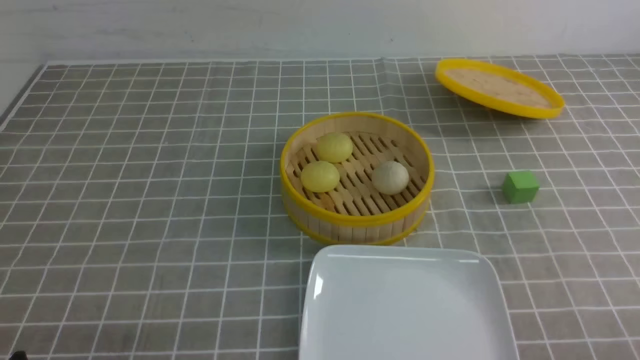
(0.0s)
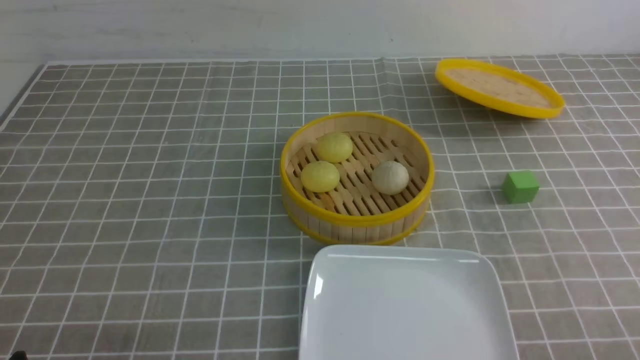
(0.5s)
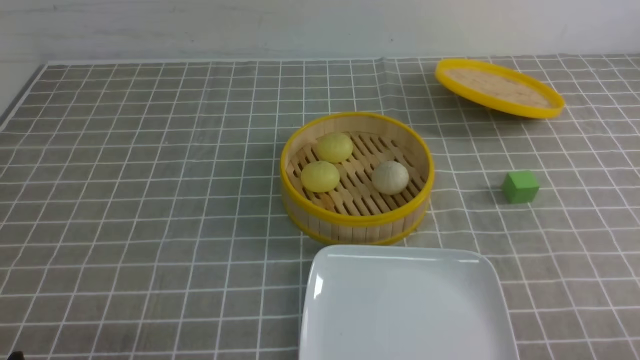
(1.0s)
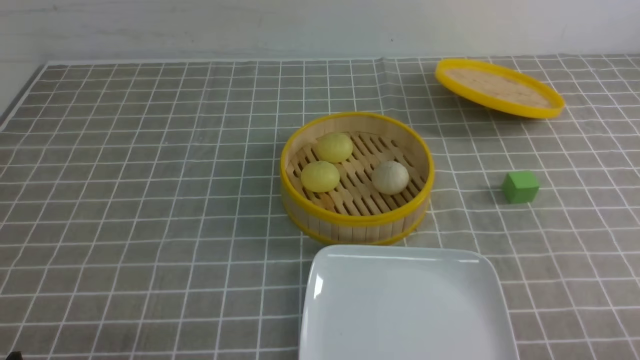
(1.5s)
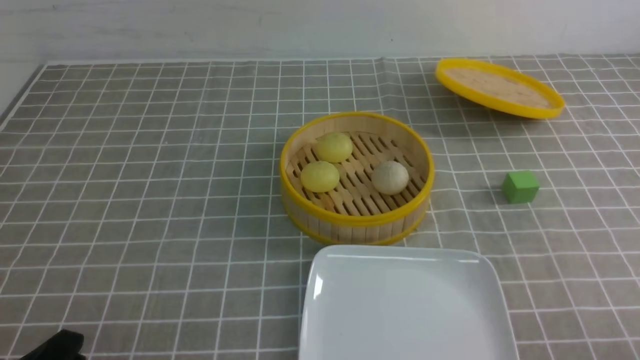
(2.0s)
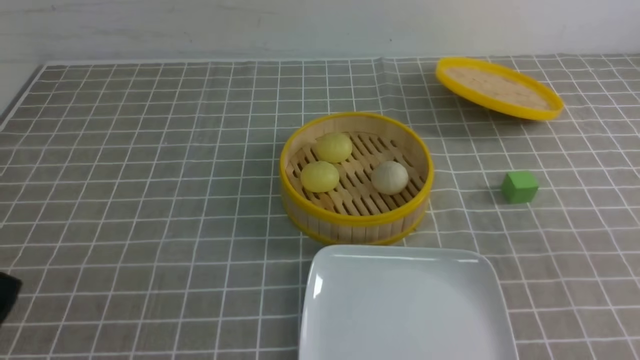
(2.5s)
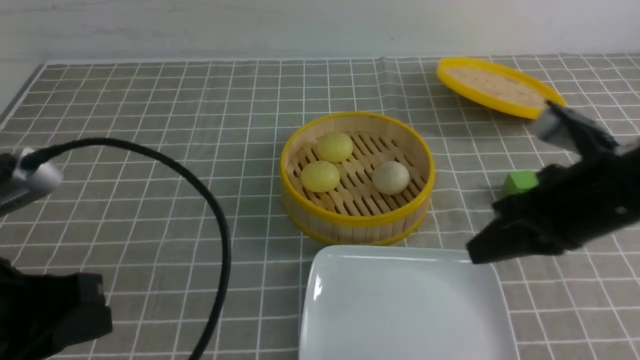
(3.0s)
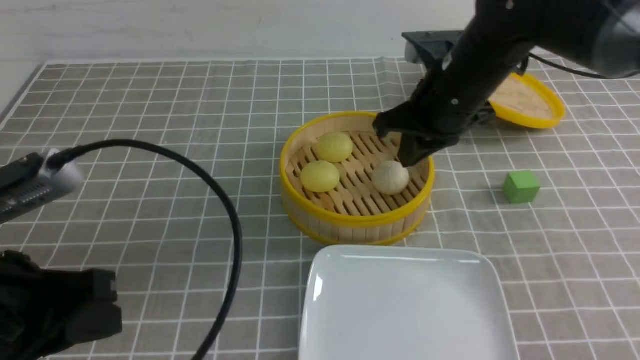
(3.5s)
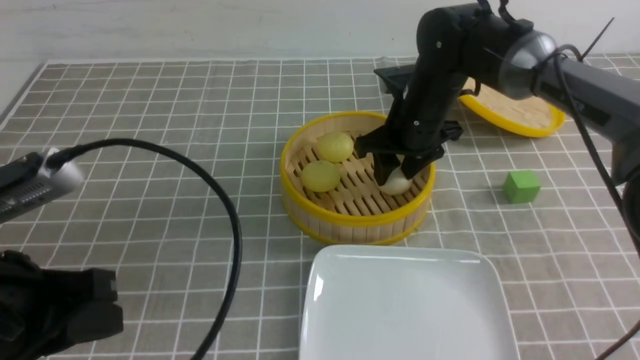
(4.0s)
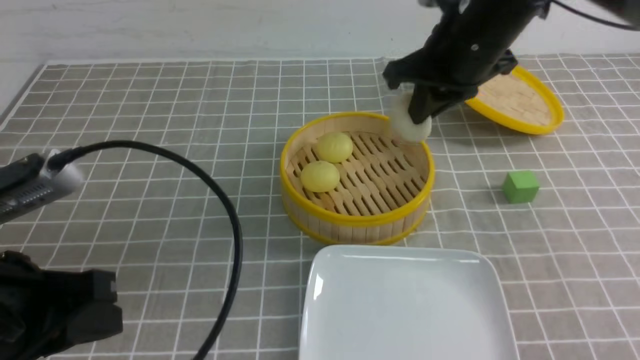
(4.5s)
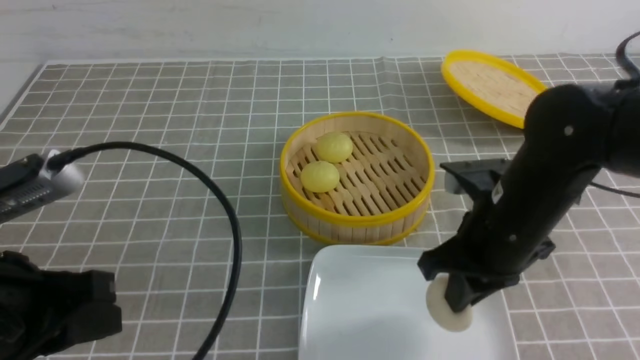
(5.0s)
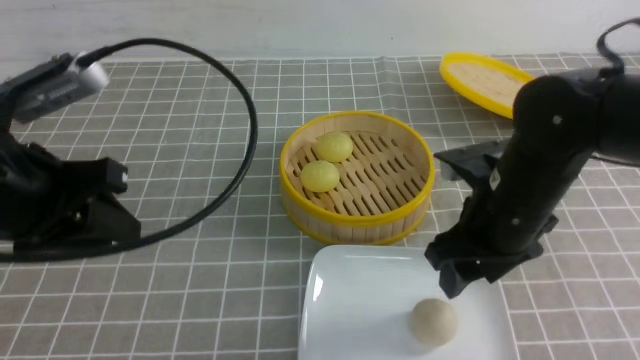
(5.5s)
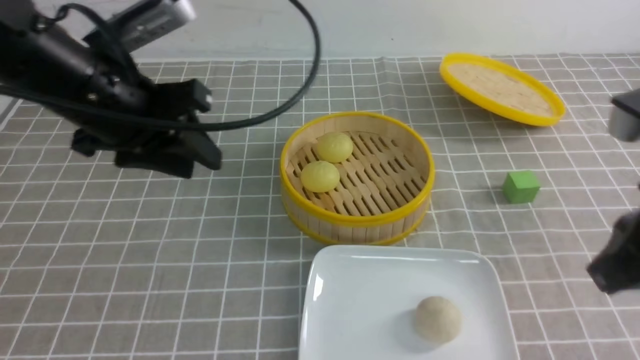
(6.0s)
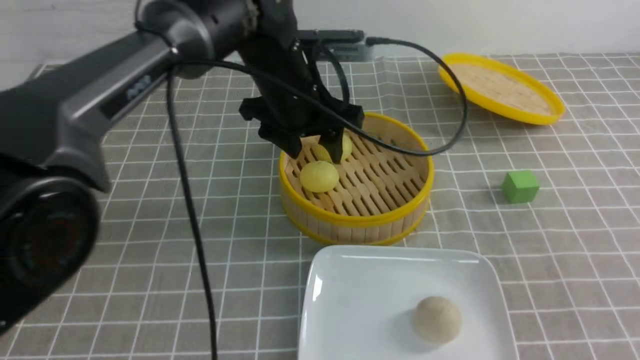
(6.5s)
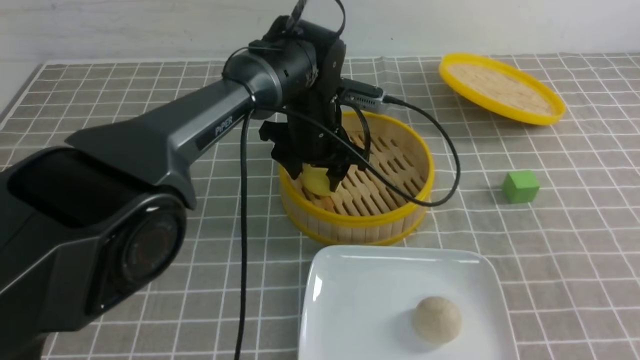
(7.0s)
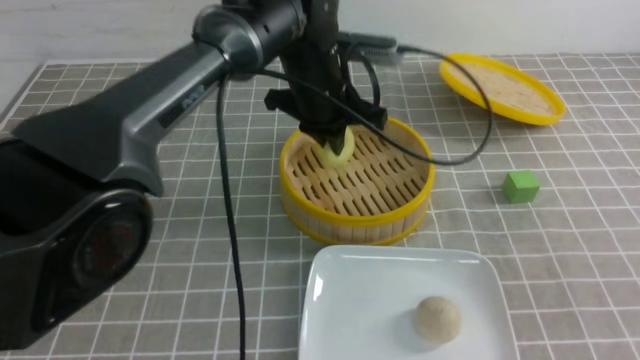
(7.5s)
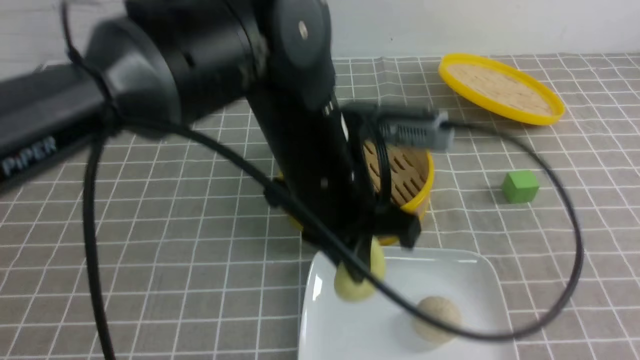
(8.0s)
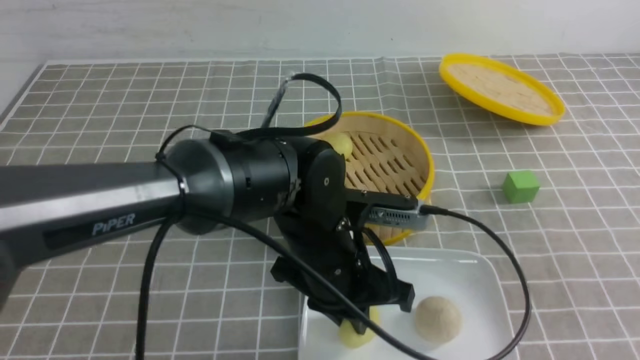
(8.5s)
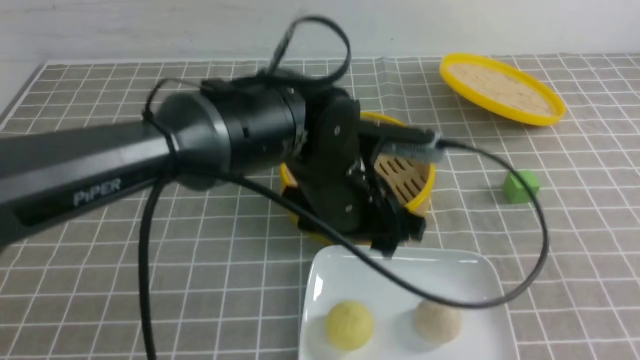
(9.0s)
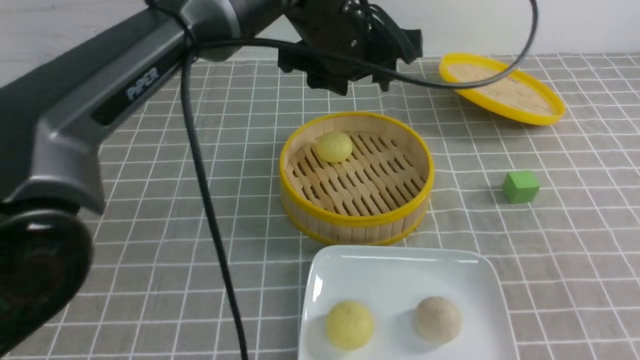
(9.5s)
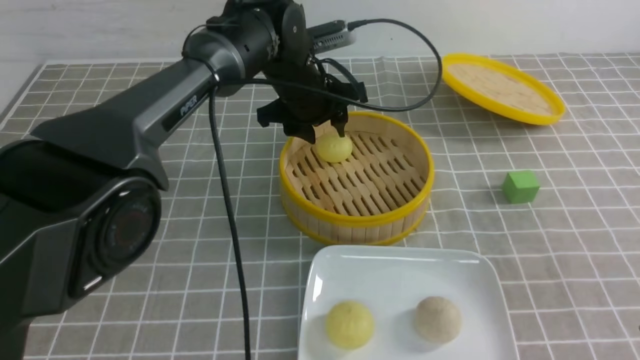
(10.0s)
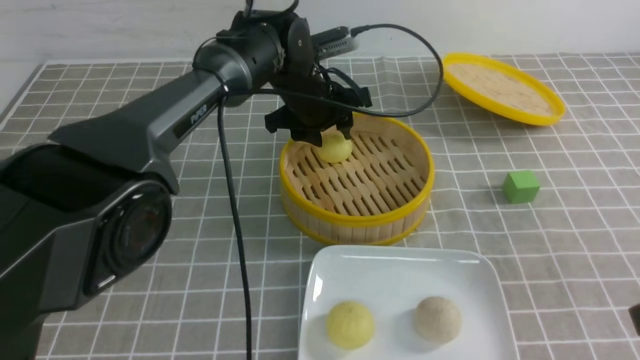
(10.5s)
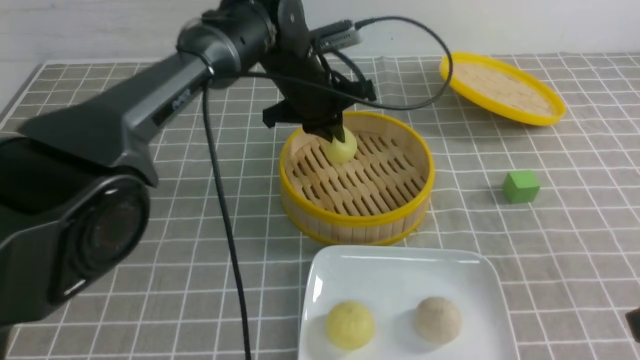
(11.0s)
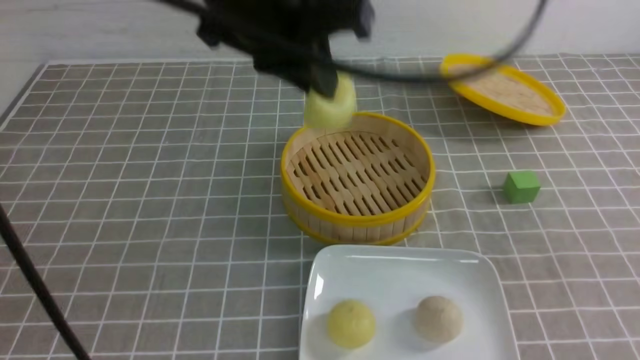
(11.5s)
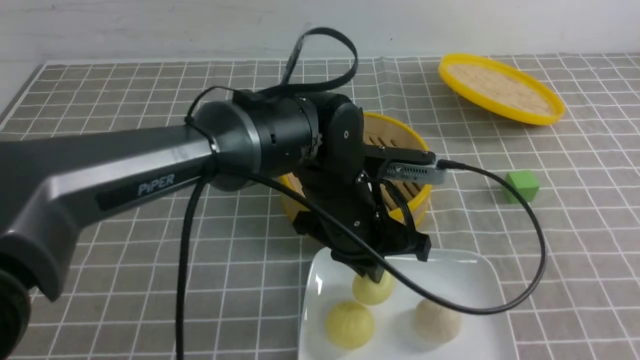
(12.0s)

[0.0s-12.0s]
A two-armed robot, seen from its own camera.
Step, 0.0s to 4.0s: use the right arm to grab the steamed stuffed bun that is closest to it.
Step, 4.5s to 5.0s: use the right arm to put the steamed stuffed bun into the plate.
Step, 5.5s to 7.0s: use the left arm to grab the steamed stuffed bun that is closest to it.
Step, 7.5s to 8.5s: use the left arm to put the steamed stuffed bun into the plate.
Step, 9.0s to 10.5s: use the left arm to grab the steamed stuffed bun that is closest to it.
2.0s to 4.0s: The left gripper goes some 15 cm upward and forward, and closes its fingers; the right gripper travels forward and to the left by some 40 cm, and closes, then reopens.
4.0s to 6.0s: The right gripper goes about 30 cm backward, to the right and upward, and closes its fingers. The left gripper shifts approximately 15 cm forward, and opens its fingers.
6.0s to 8.0s: The left gripper shifts some 15 cm to the right, and closes, while the right gripper is displaced backward by some 5 cm.
8.0s to 10.0s: The left gripper is displaced forward by some 20 cm, and opens up.
10.0s to 12.0s: The right gripper shifts some 5 cm backward; the left gripper heads backward, covering about 20 cm, and closes its fingers.

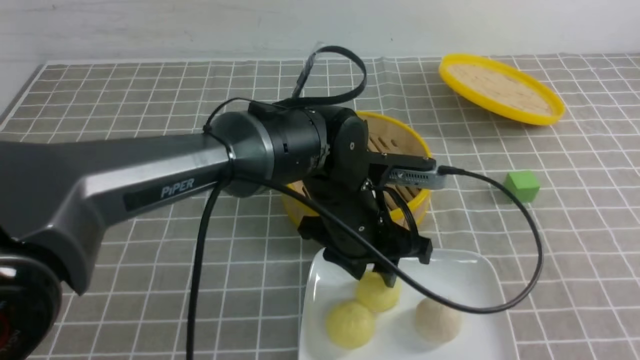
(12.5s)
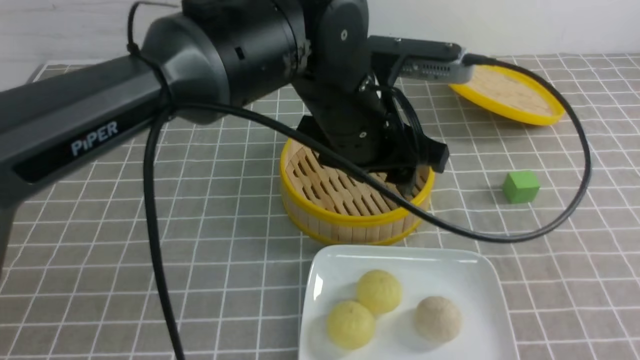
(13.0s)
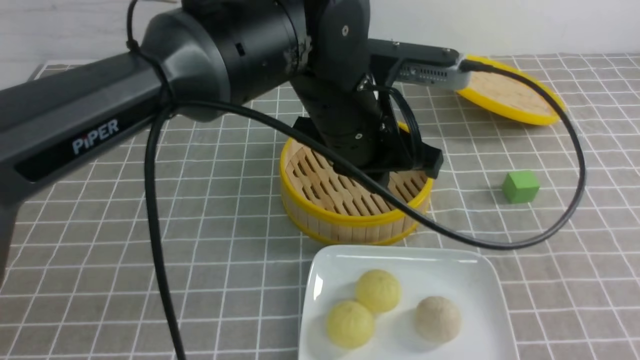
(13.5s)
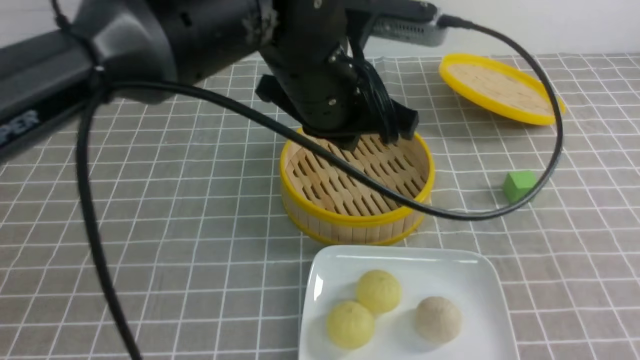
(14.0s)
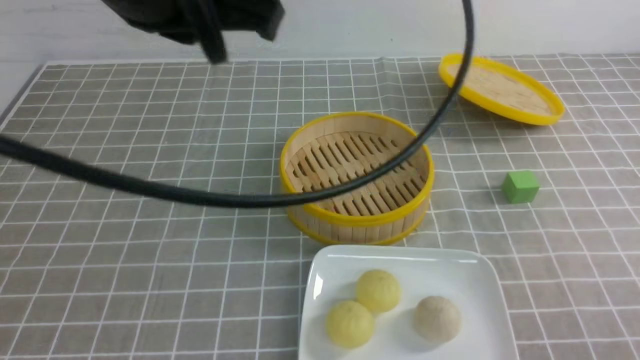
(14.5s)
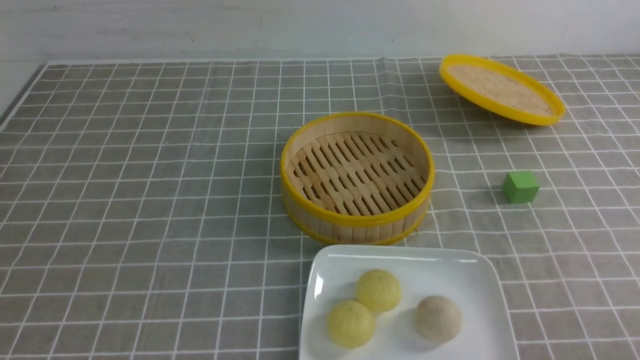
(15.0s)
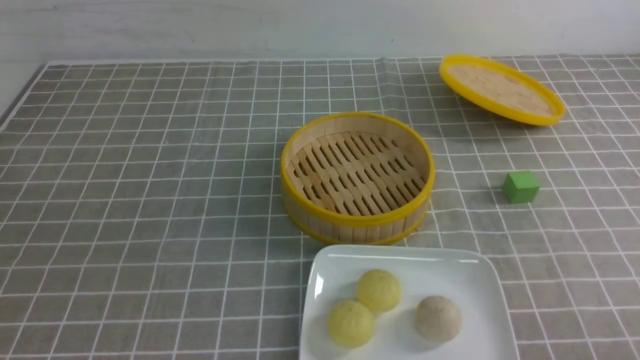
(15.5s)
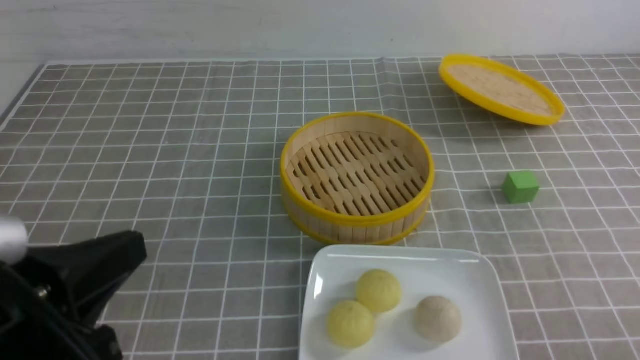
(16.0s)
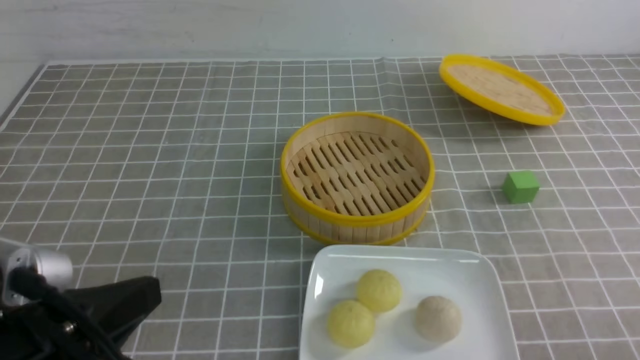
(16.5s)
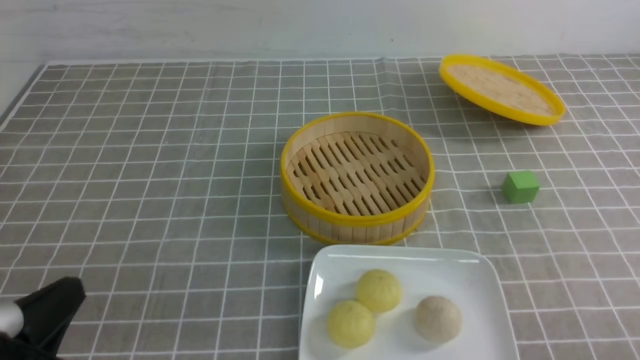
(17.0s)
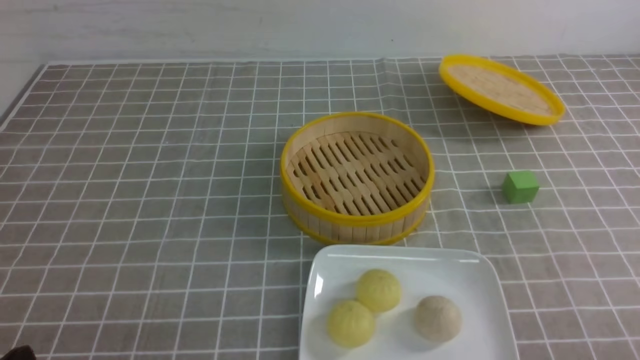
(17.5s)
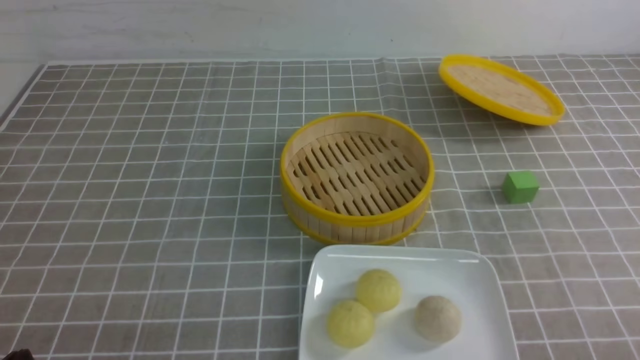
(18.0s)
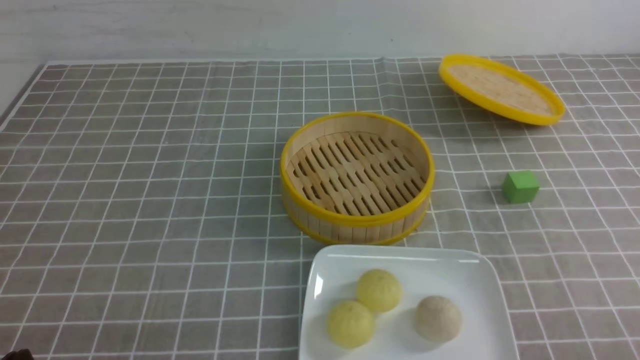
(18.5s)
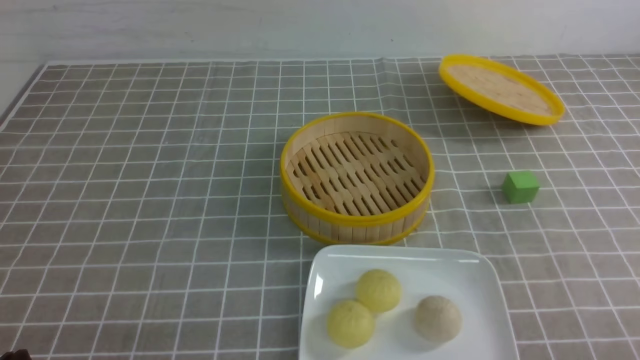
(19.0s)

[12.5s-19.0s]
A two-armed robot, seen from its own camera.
12.5s to 14.5s: The right gripper shifts about 15 cm downward, while the left gripper shifts about 30 cm upward and to the left, and closes its fingers.
14.5s to 17.0s: The left gripper travels downward, backward and to the left by about 30 cm.
17.0s to 19.0s: The left gripper goes about 5 cm downward.

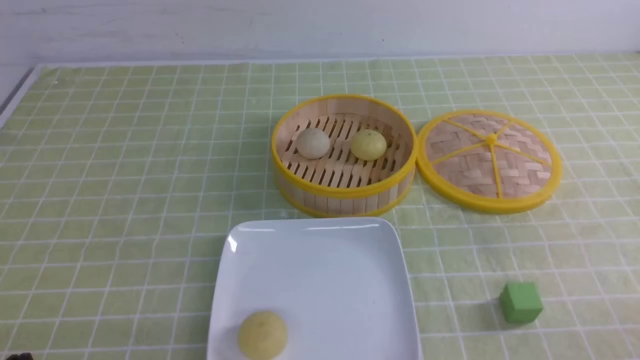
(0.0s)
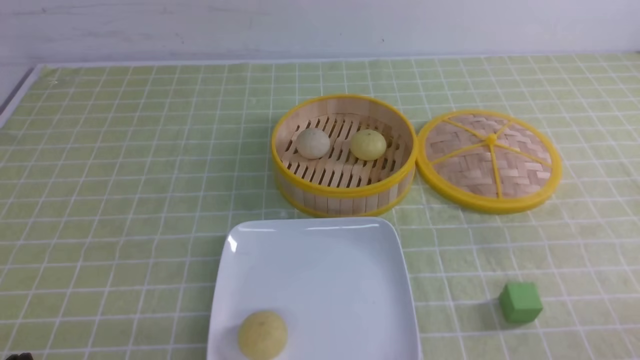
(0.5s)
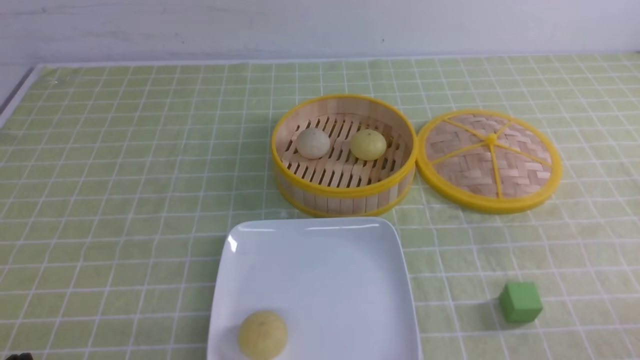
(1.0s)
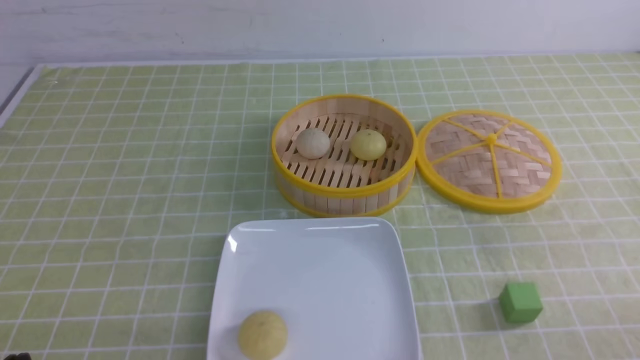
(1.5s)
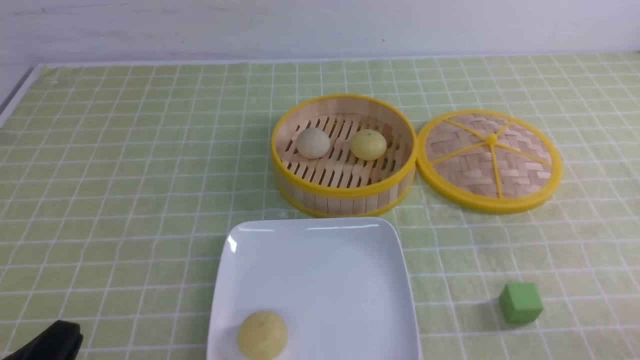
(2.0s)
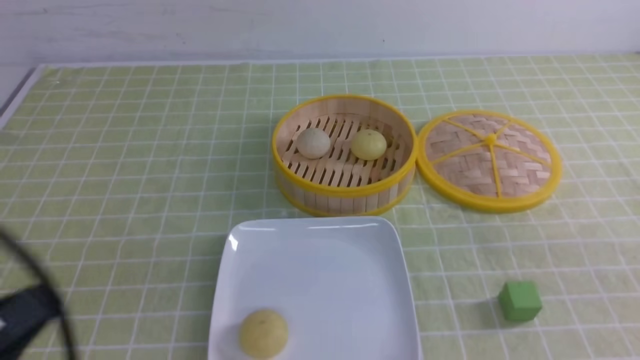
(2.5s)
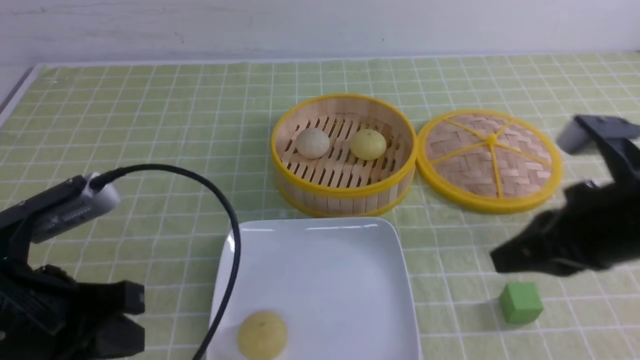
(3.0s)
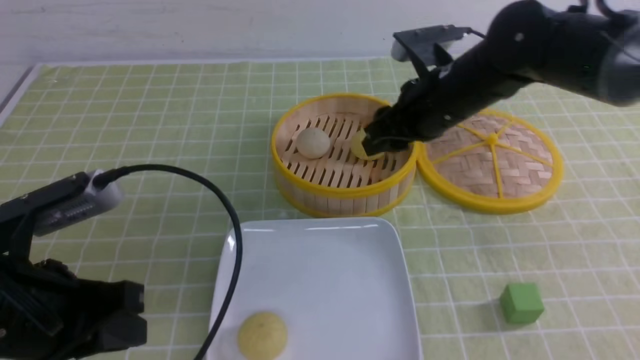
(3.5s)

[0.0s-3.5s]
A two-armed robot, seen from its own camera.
2.0s to 3.5s: The right gripper travels forward and to the left by approximately 40 cm, and closes, then reopens, while the left gripper moves forward and upward, some 10 cm.
